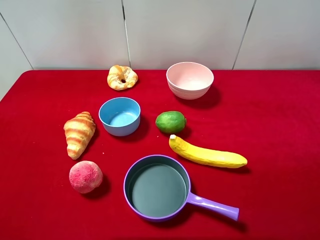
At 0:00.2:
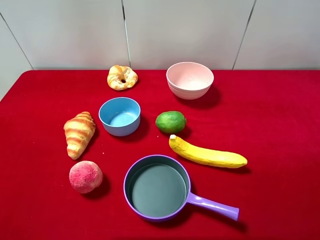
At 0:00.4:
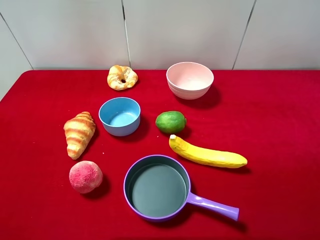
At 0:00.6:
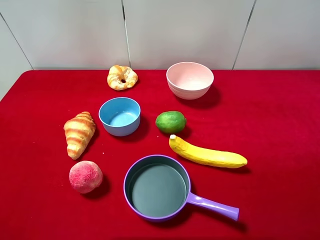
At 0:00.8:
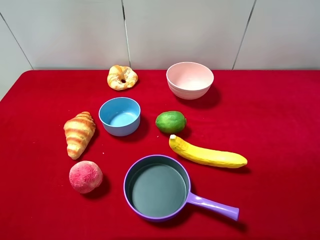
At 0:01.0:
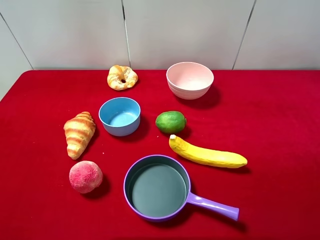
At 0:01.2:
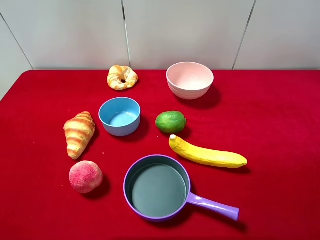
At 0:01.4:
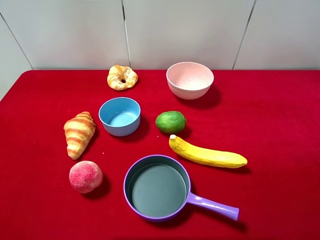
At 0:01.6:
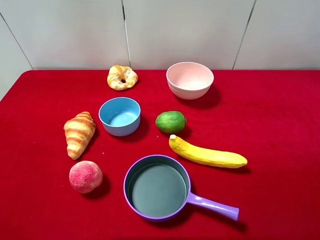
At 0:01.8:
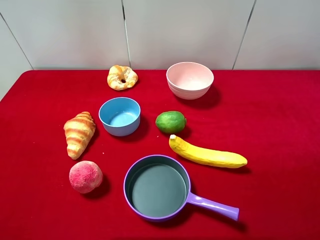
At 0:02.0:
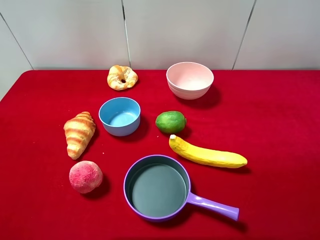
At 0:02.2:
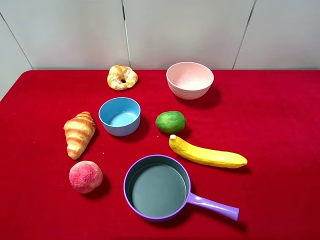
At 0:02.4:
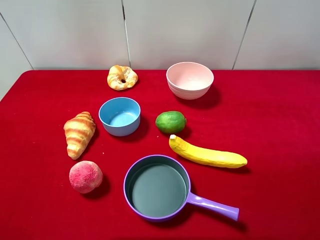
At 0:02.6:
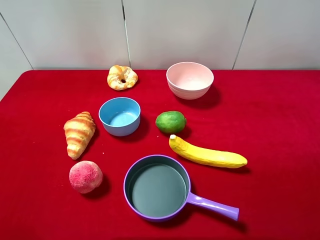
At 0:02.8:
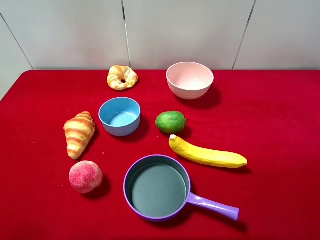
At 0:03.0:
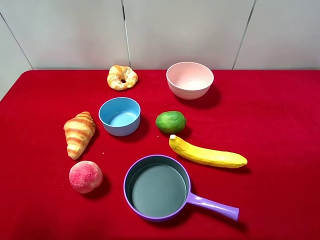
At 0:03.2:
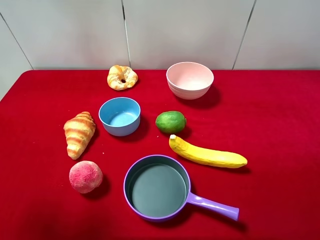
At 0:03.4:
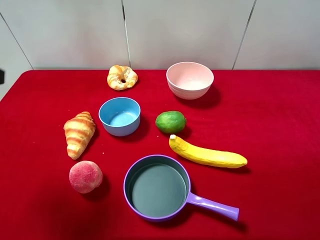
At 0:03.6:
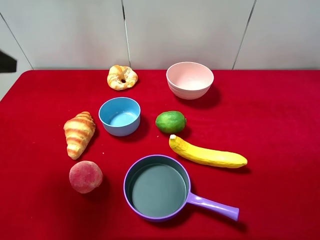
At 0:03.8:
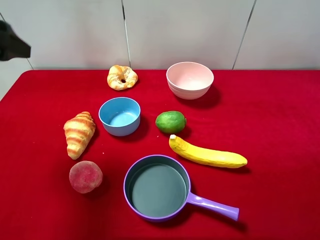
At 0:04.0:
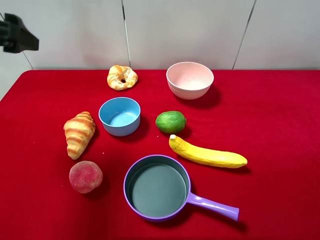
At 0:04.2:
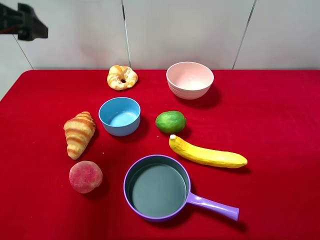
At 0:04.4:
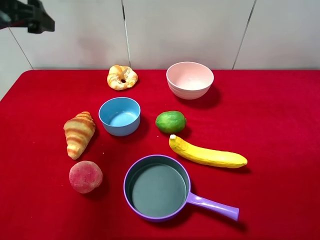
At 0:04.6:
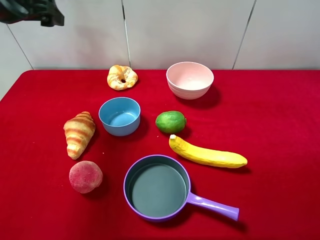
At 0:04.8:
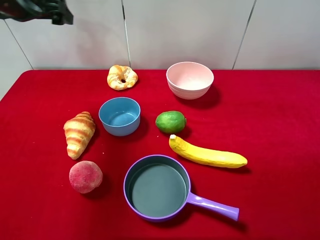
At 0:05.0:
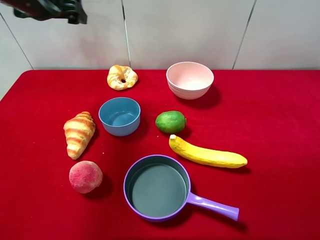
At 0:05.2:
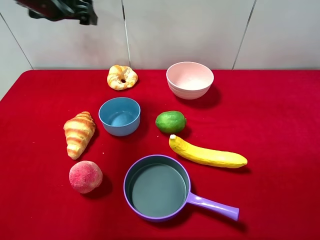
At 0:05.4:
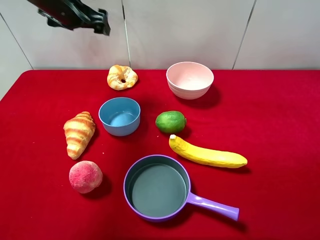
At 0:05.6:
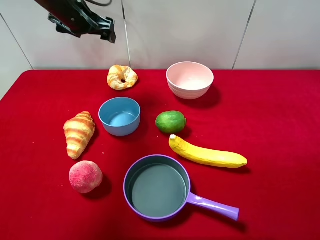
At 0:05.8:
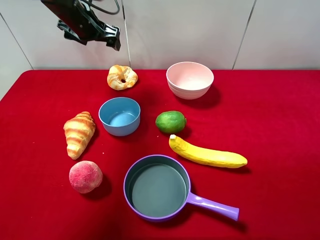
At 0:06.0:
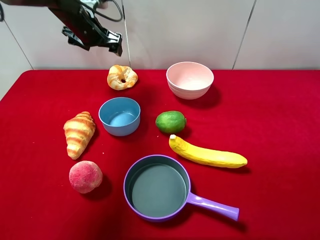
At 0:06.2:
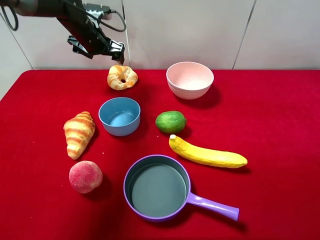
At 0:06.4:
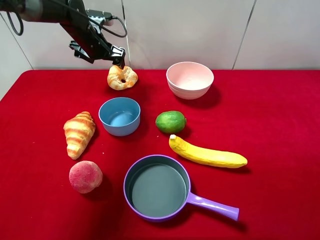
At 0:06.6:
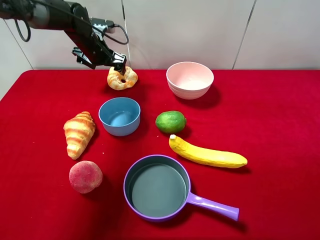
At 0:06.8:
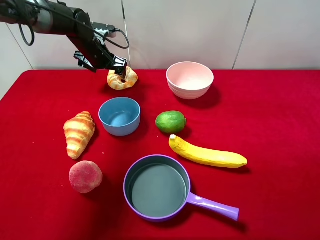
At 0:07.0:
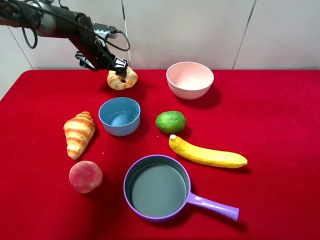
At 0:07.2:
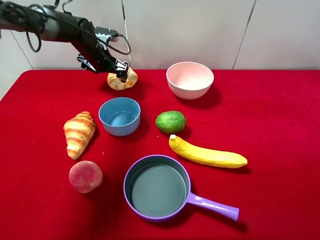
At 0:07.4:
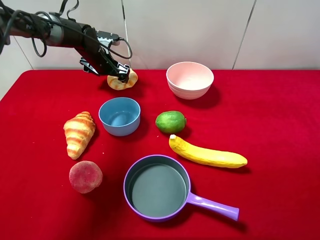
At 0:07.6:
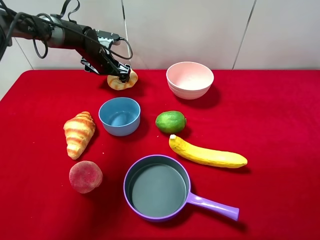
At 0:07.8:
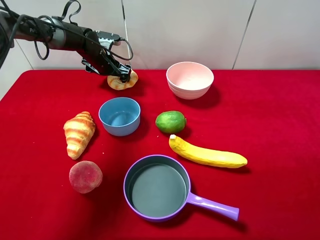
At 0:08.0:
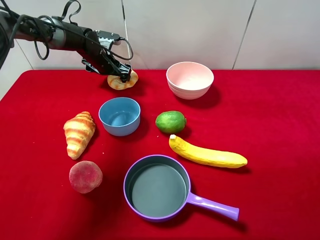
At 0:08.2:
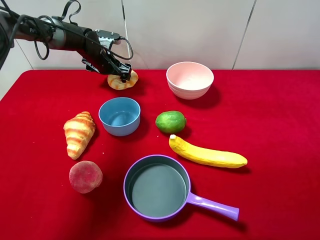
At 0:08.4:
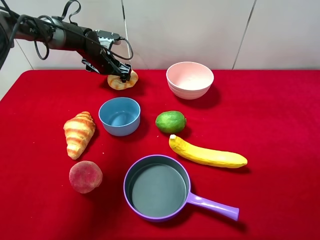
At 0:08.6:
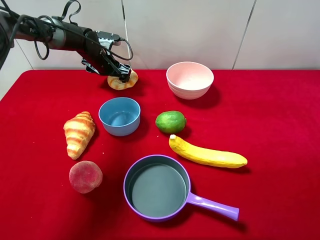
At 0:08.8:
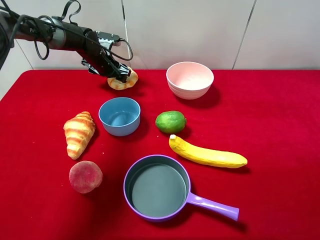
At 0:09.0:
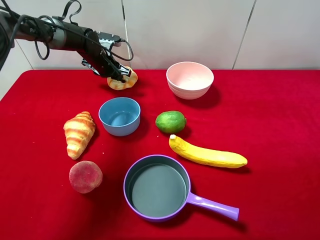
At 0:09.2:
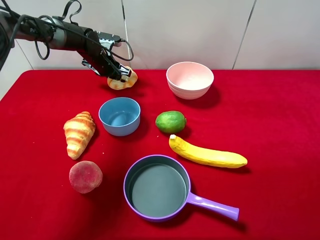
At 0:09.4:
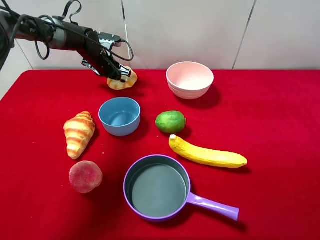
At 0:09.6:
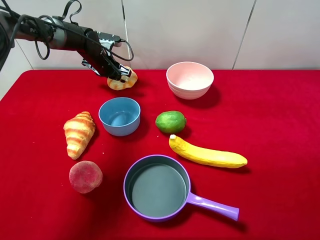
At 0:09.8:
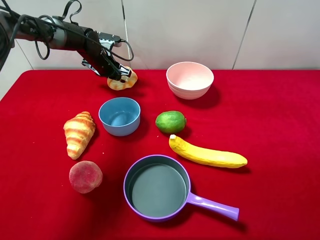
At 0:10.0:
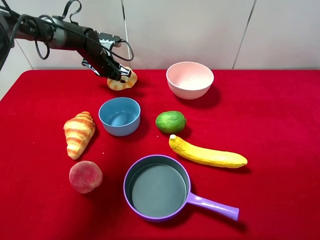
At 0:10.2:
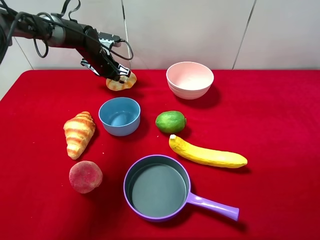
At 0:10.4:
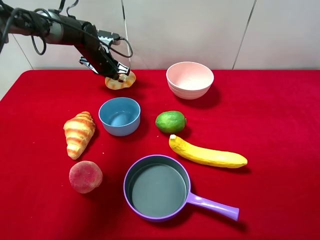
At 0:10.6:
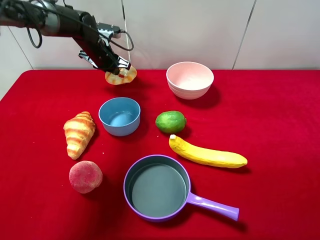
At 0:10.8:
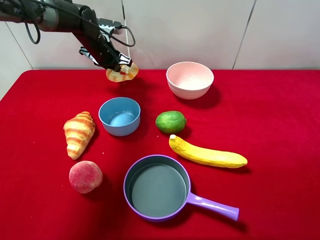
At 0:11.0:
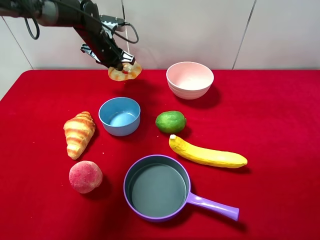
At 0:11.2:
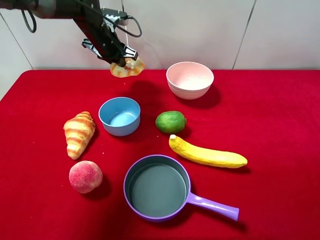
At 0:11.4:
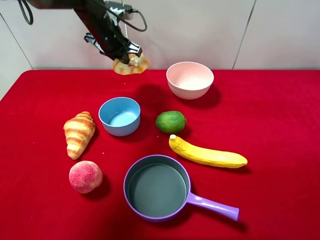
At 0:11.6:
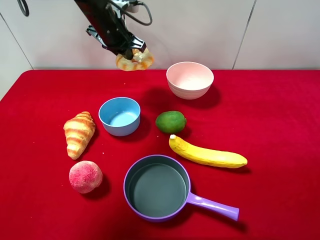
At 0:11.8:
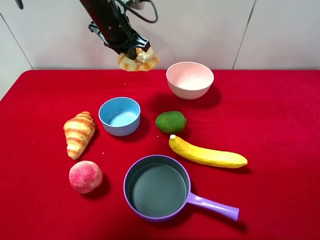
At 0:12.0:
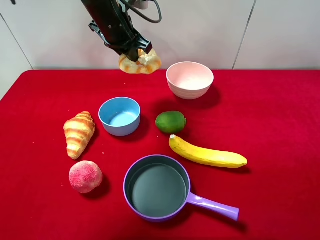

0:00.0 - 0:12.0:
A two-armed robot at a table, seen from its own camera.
Task of the whole recording: pick up an item with a gripper and place it in a random container on the desktop.
0:00.0 - 0:01.6: Neither gripper changes place.
0:03.0 - 0:04.4: The left gripper heads forward, covering roughly 20 cm.
0:04.4 - 0:06.0: The left gripper travels forward, downward and to the right by approximately 20 cm.
0:06.0 - 0:07.6: The left gripper is displaced downward by roughly 10 cm.
0:07.6 - 0:09.0: The left gripper closes up.
0:09.0 - 0:10.4: The grippers stay close to where they were, moving slightly.
0:10.4 - 0:12.0: The left gripper goes roughly 20 cm upward, backward and to the right.

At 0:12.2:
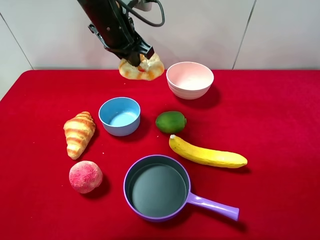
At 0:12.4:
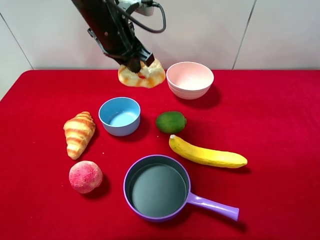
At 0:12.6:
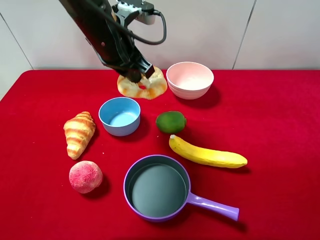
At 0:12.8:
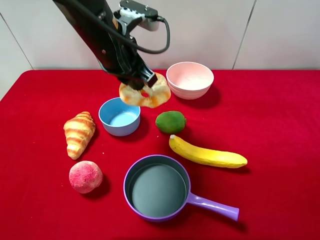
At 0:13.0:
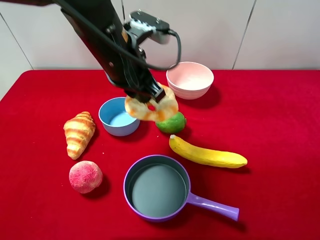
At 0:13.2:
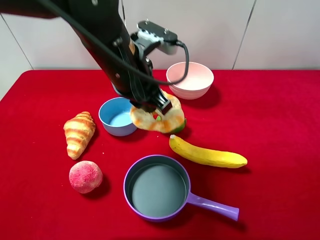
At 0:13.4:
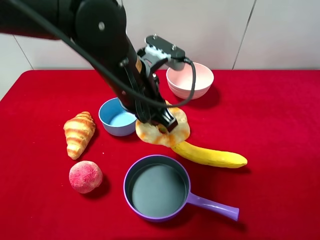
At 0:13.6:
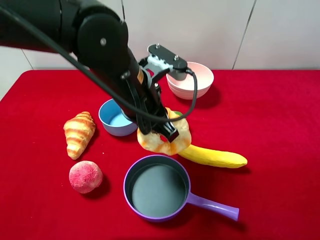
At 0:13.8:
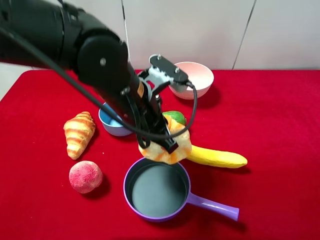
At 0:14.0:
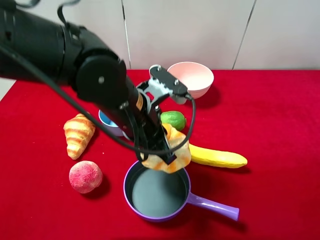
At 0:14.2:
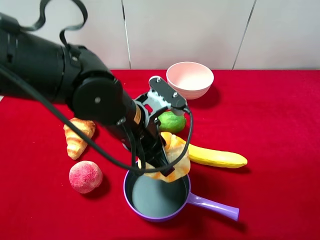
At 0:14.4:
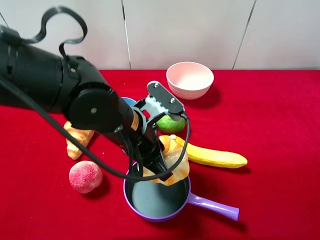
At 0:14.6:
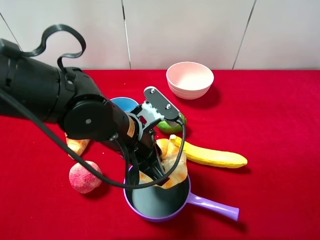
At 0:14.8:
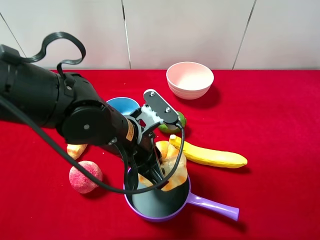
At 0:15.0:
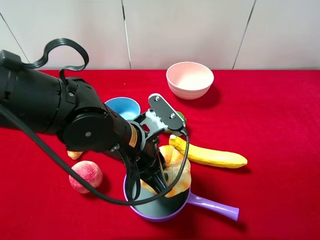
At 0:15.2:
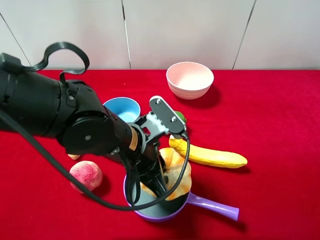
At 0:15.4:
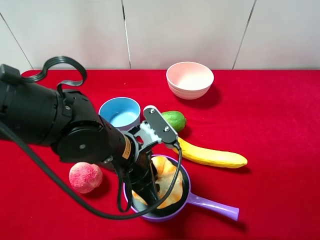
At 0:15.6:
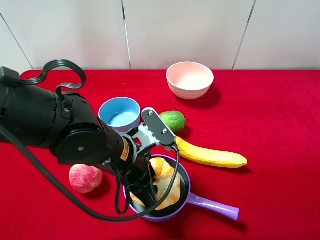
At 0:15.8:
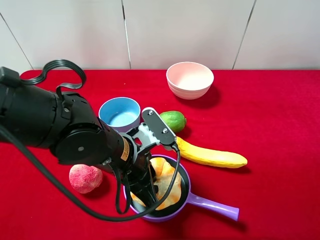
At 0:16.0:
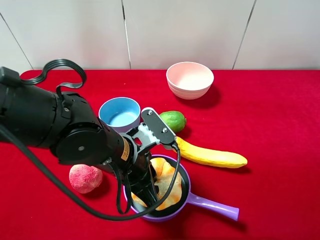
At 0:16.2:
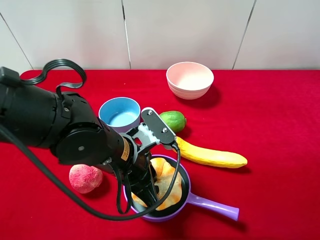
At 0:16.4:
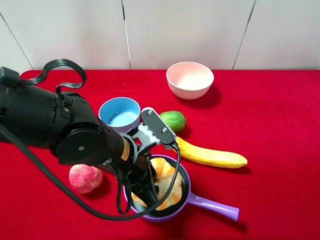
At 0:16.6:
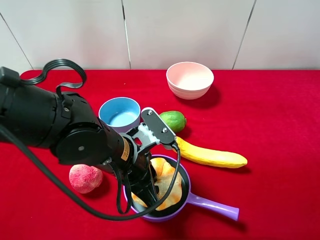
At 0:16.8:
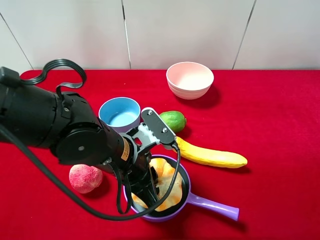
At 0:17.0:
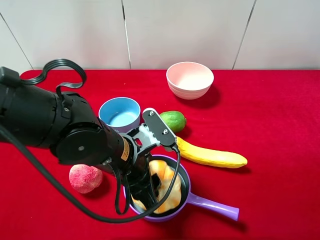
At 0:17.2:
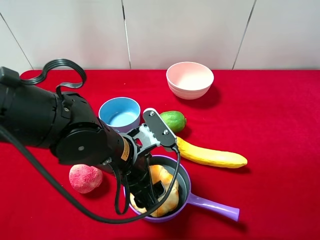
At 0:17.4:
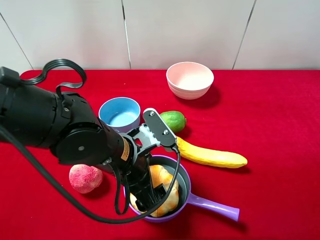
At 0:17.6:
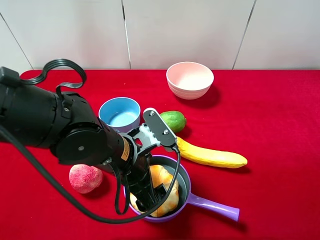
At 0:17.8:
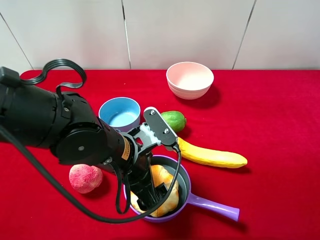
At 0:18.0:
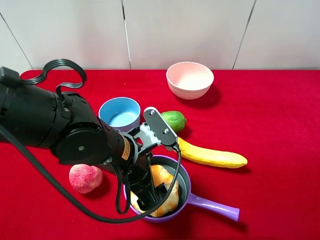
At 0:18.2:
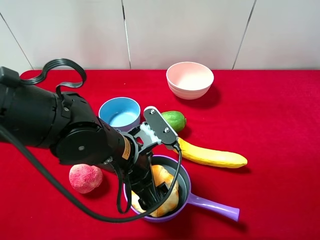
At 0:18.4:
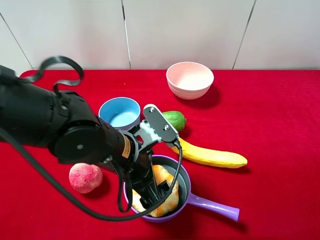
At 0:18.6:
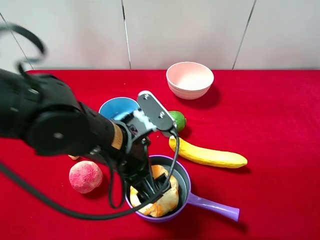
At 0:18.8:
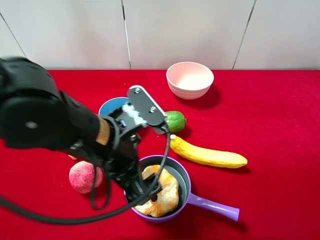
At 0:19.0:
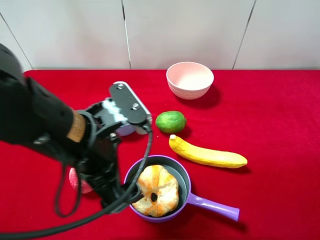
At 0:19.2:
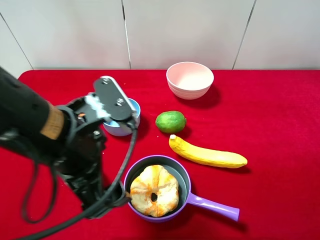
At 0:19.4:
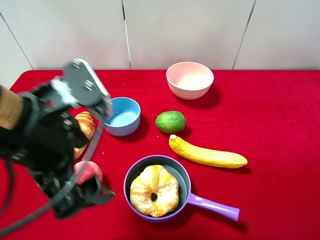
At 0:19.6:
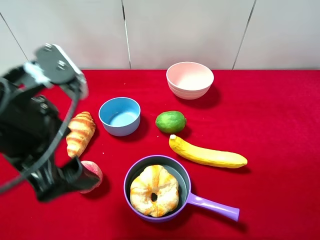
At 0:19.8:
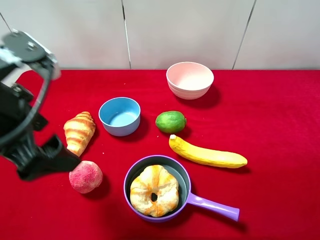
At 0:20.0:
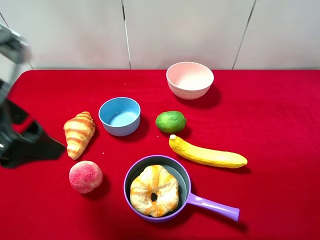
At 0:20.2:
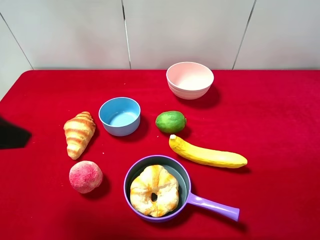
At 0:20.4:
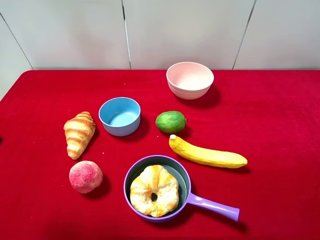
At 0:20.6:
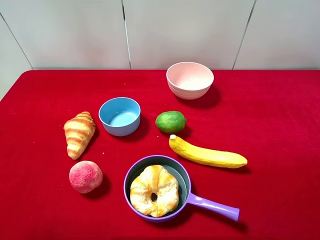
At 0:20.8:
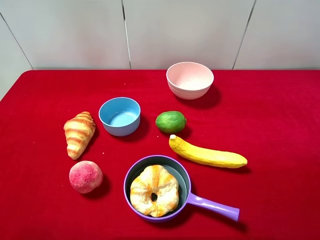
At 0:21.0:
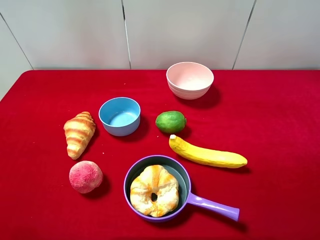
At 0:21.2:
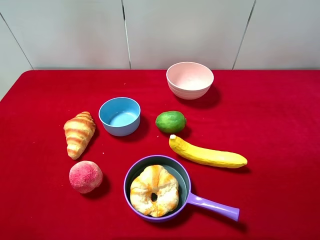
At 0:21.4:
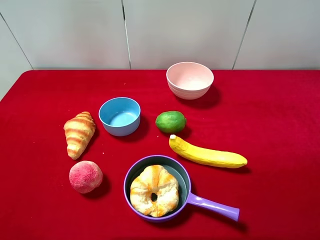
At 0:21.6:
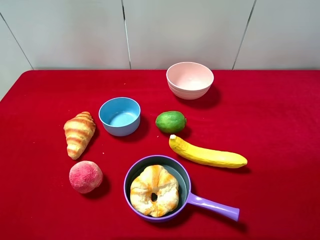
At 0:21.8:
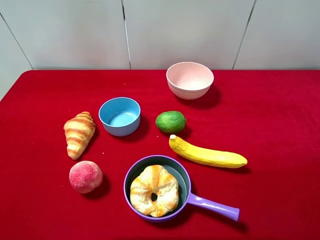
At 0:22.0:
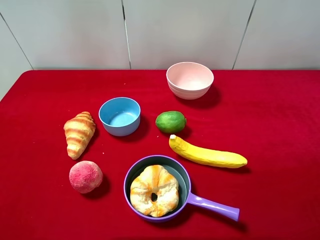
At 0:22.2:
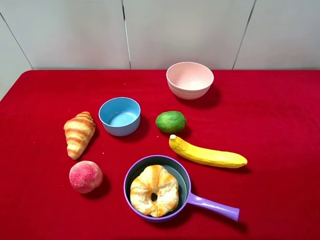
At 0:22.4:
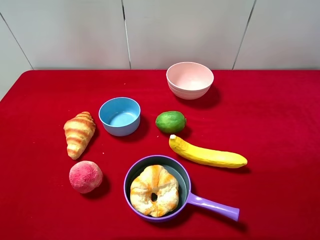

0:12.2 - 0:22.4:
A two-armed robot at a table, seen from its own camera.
Task of the whole recording: pick up an item with a gripper and place it in a random container on the desktop.
0:12.2 - 0:13.6: The left gripper goes approximately 15 cm backward.
0:13.6 - 0:15.2: The left gripper shifts approximately 10 cm downward and backward.
0:15.2 - 0:16.6: The grippers make only small movements.
0:16.6 - 0:18.0: The left gripper opens up.
0:18.0 - 0:19.4: The left gripper shifts roughly 15 cm upward and to the left.
0:19.4 - 0:21.0: The left gripper heads to the left and backward, covering about 20 cm.
